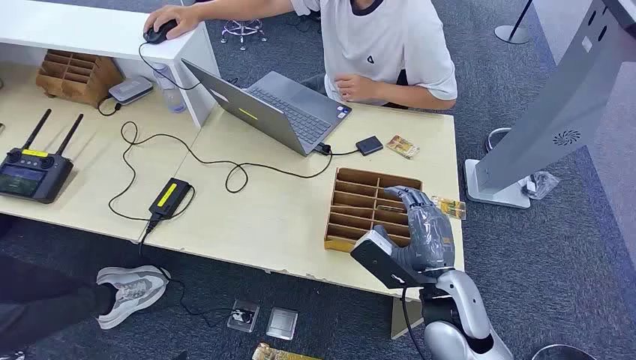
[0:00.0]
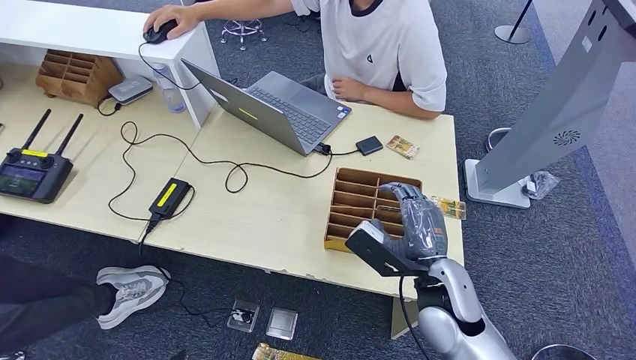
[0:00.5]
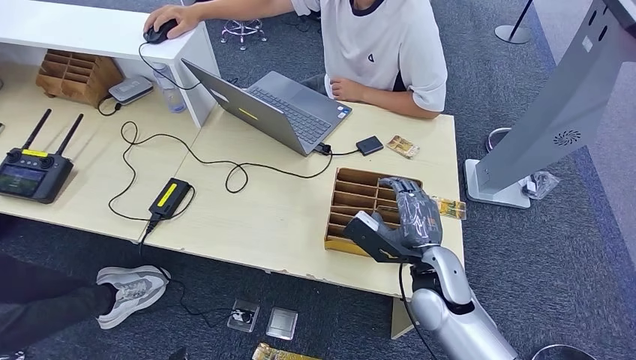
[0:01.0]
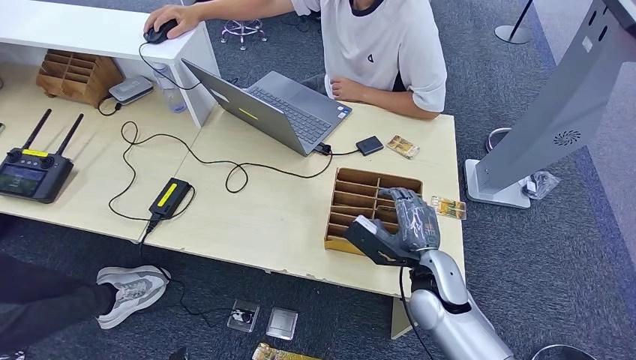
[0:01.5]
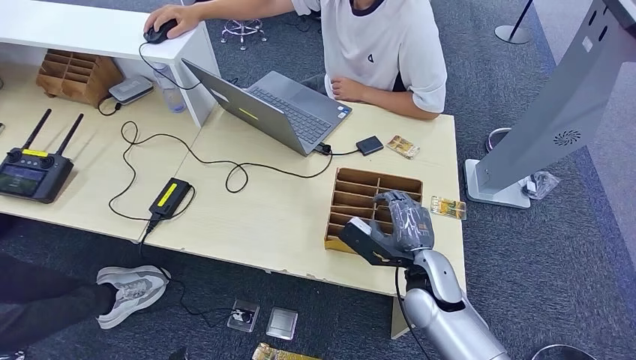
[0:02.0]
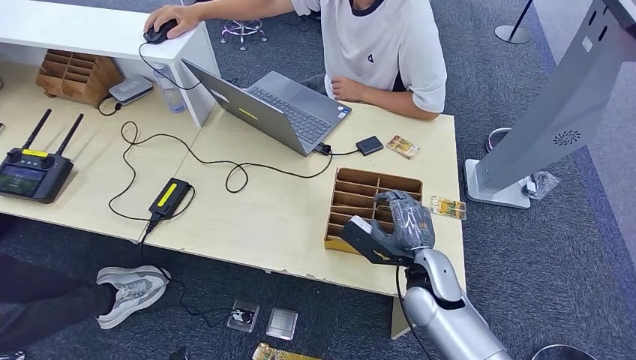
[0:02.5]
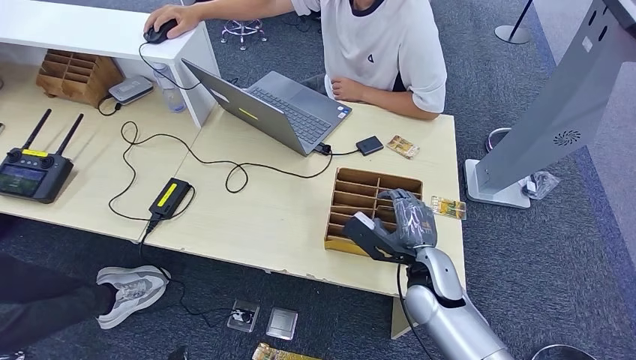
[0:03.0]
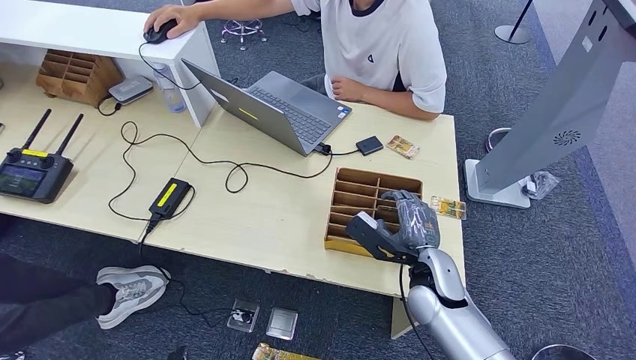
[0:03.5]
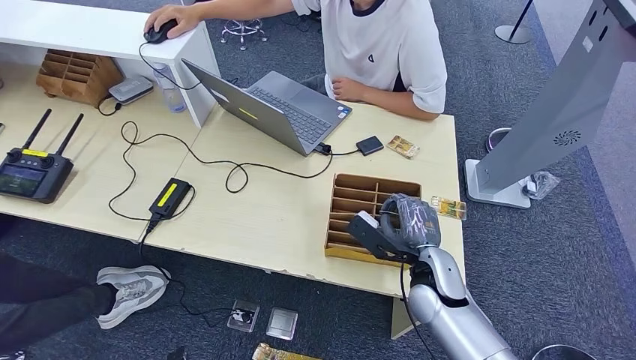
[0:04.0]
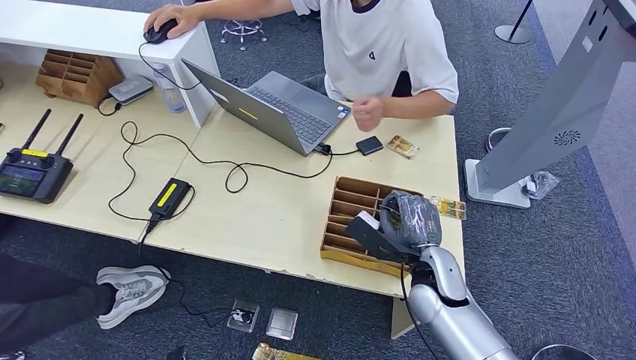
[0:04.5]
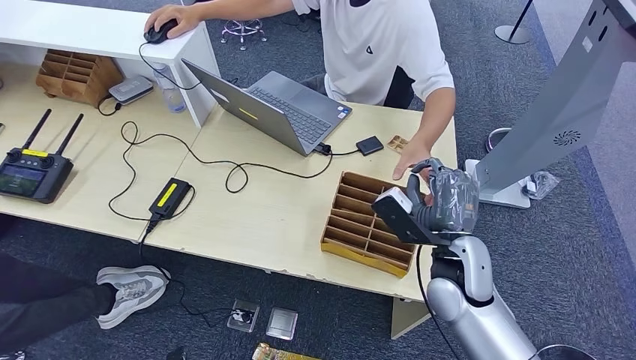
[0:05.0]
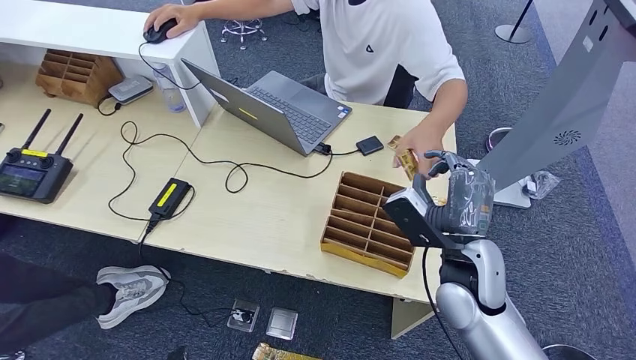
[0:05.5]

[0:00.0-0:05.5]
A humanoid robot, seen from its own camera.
Task of the whole recording: Pick up the card and hand it over to the target person.
Step, 0:00.0 to 0:04.5: Pick up the key card from the card box.
Step, 0:05.0 to 0:05.5: Hand the key card to the target.
0:02.0 to 0:03.5: Neither hand changes place.
0:03.5 to 0:05.5: The right hand heads upward, covering some 10 cm.
